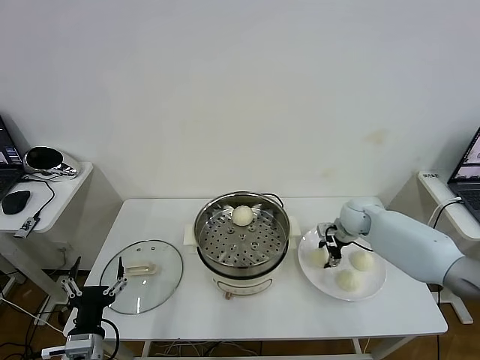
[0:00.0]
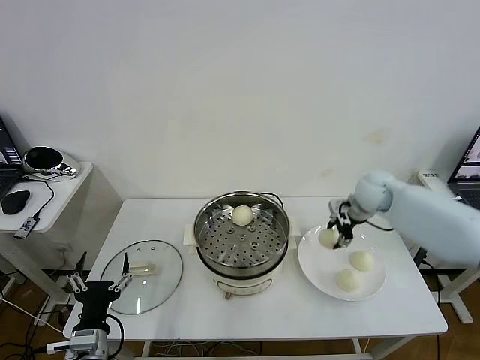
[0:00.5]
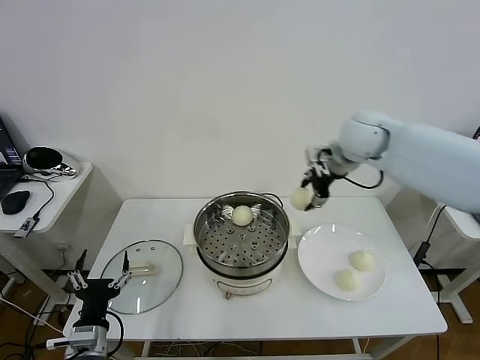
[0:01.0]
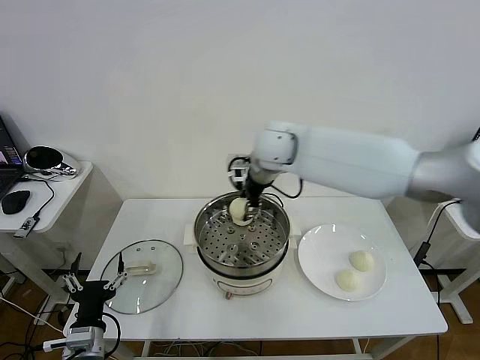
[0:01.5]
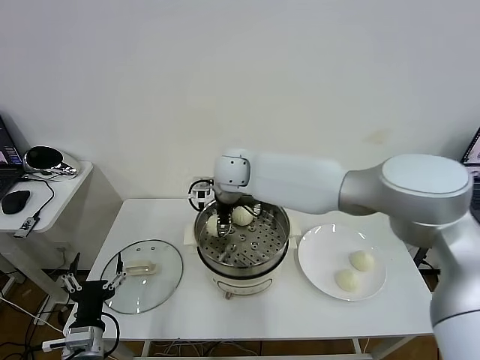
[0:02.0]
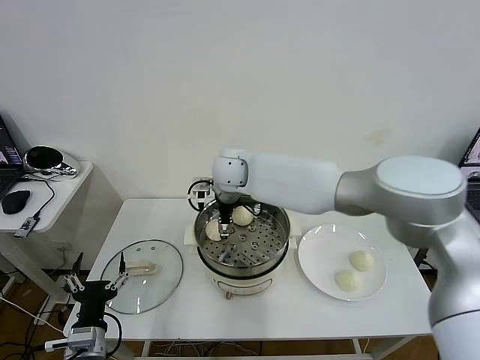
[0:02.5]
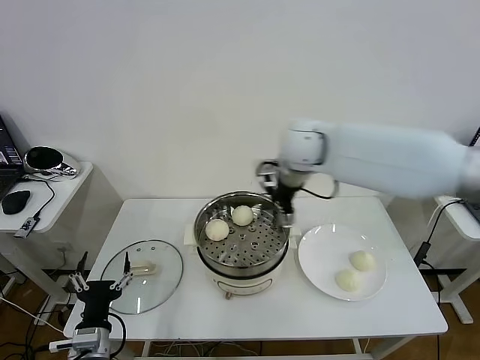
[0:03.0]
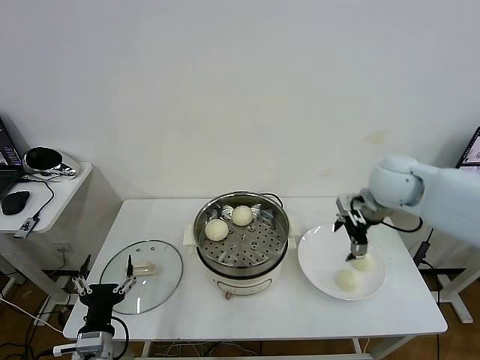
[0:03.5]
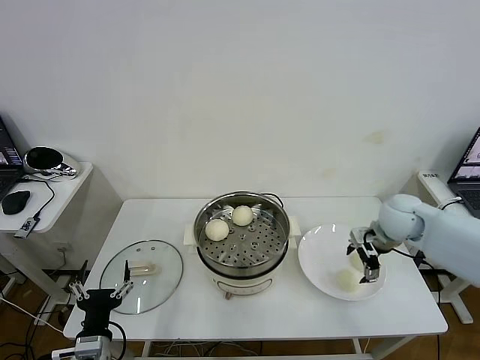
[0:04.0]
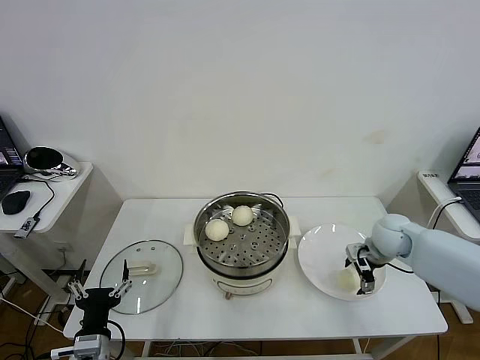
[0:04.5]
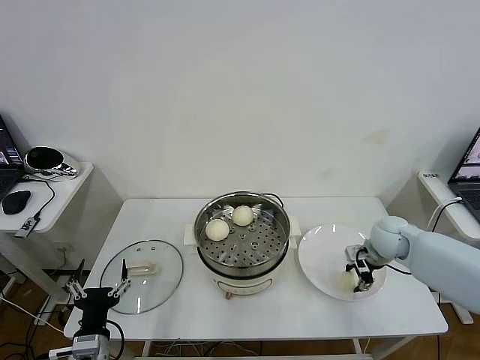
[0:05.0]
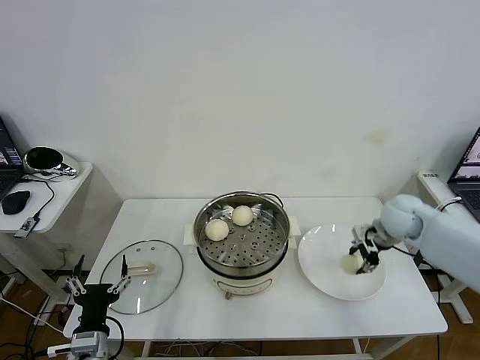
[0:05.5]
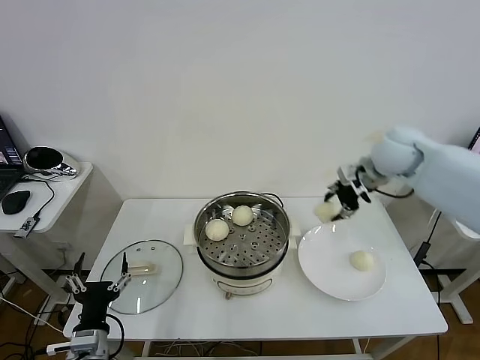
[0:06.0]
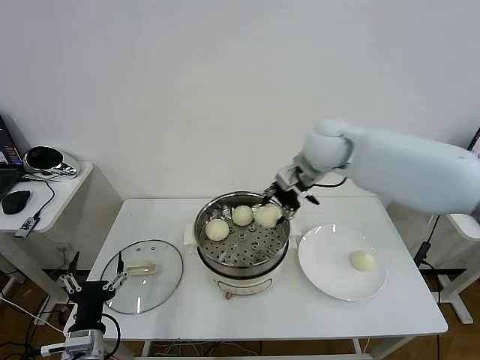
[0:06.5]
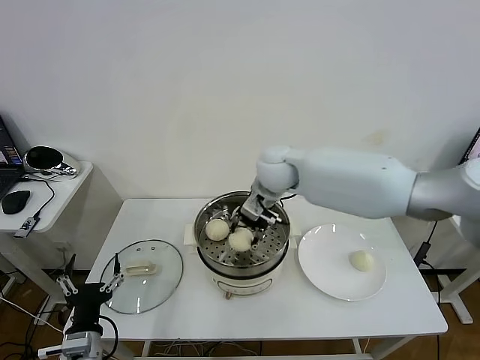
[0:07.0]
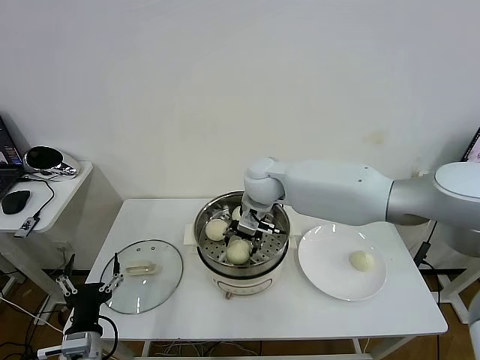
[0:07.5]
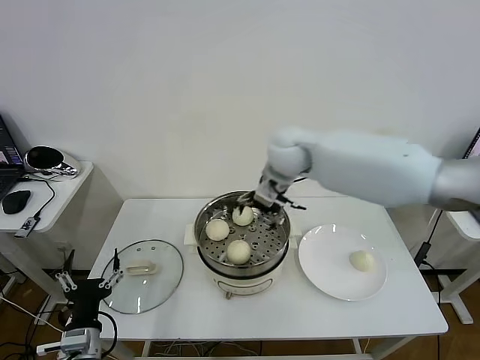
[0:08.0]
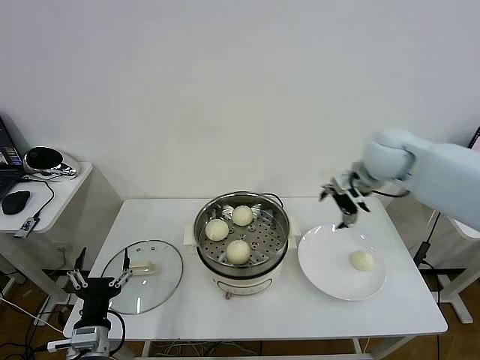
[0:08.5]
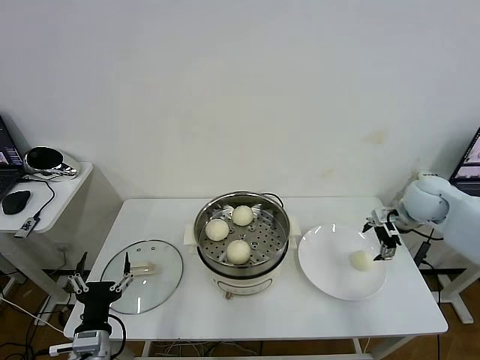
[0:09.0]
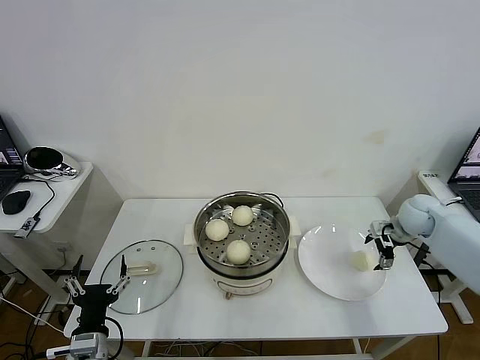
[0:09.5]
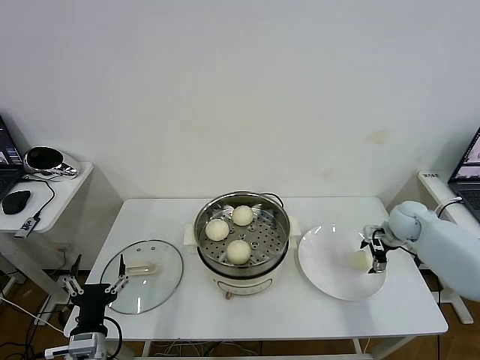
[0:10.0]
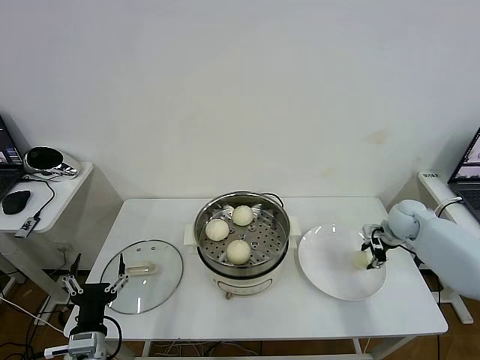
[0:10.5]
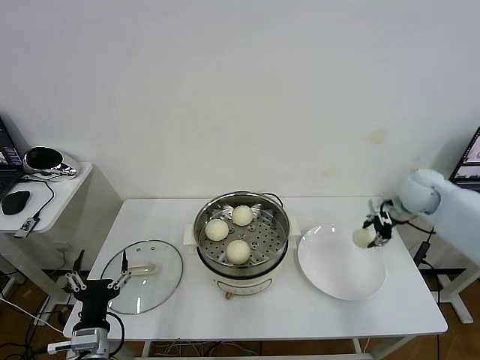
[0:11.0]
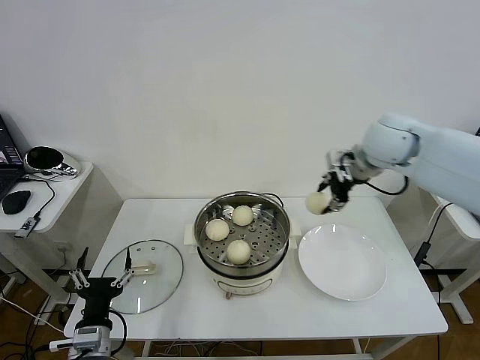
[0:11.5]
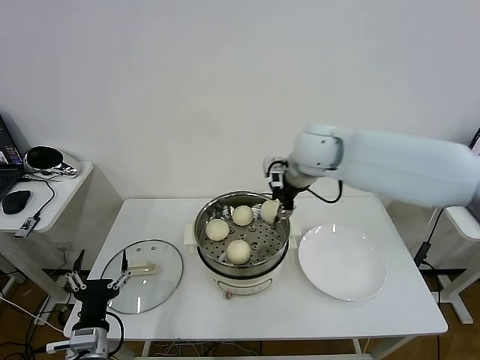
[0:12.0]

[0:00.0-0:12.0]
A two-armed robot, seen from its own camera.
Task of the whole recording: take steamed baozi put them in steamer then cover it.
Step, 0:00.5 to 0:02.0: Place the baozi on the steamer with right gripper.
Step, 0:03.0 to 0:05.0: Grasp the baozi in the plate with right gripper.
Step, 0:05.5 to 0:07.5: Place the baozi on the steamer with right gripper.
Step, 0:08.0 to 0:10.0: Grasp the baozi in the plate with right gripper.
0:00.0 to 0:02.0: The right gripper goes approximately 35 cm to the left and upward.
0:02.0 to 0:04.0: The right gripper moves to the right, approximately 35 cm, and opens its fingers.
0:04.0 to 0:06.0: The right gripper travels upward and forward by some 15 cm, and closes.
0:06.0 to 0:08.0: The right gripper goes approximately 20 cm to the left, and opens.
0:08.0 to 0:10.0: The right gripper is displaced to the right and downward by approximately 40 cm.
0:10.0 to 0:12.0: The right gripper is displaced to the left and upward by about 35 cm, and closes.

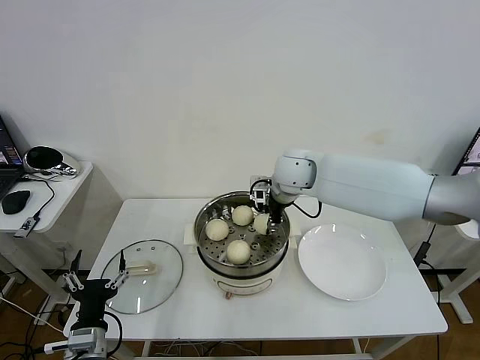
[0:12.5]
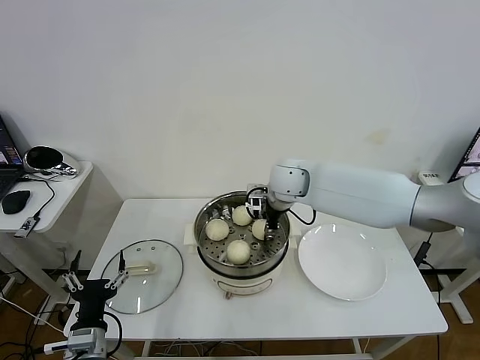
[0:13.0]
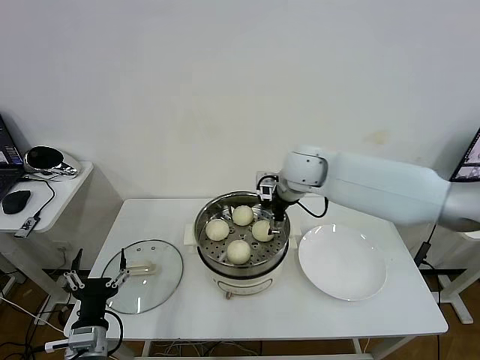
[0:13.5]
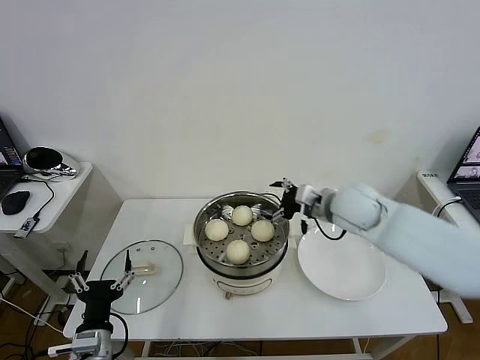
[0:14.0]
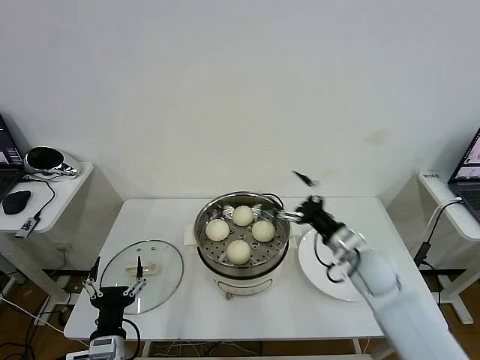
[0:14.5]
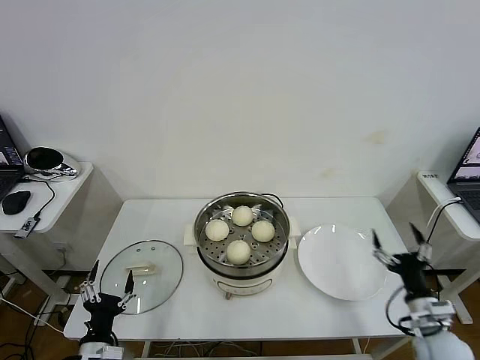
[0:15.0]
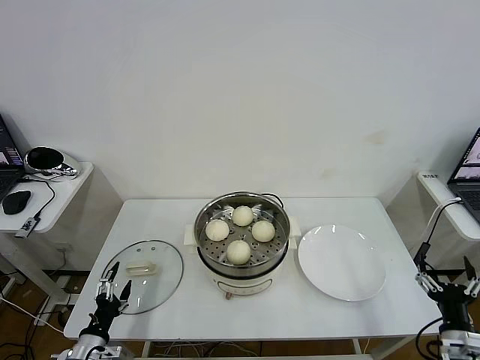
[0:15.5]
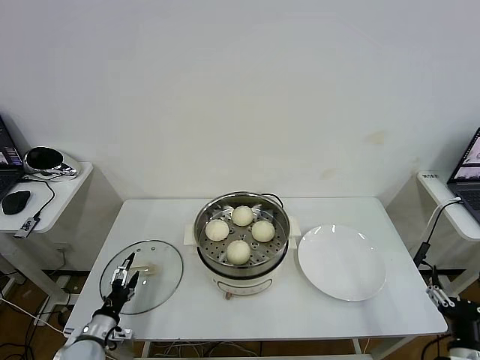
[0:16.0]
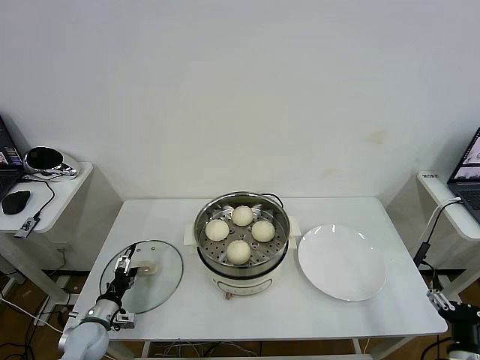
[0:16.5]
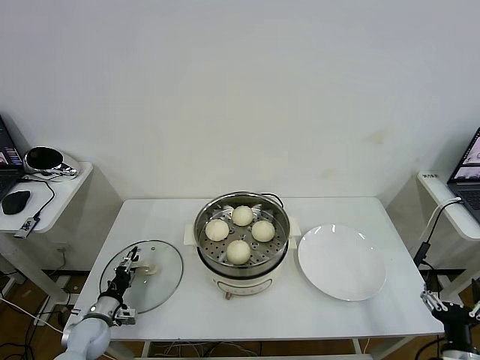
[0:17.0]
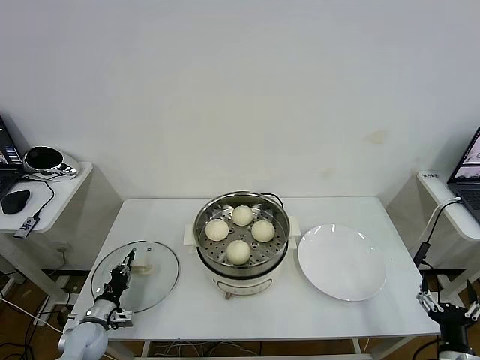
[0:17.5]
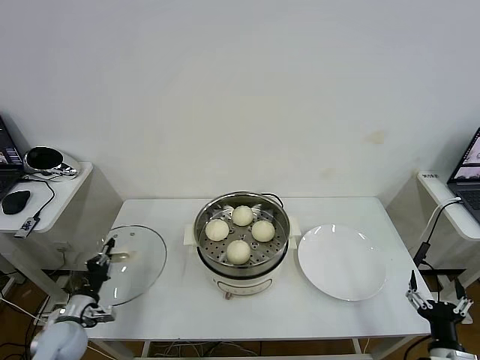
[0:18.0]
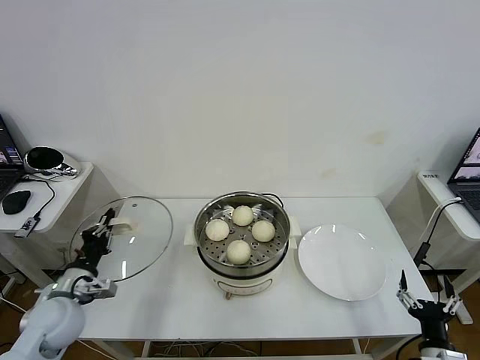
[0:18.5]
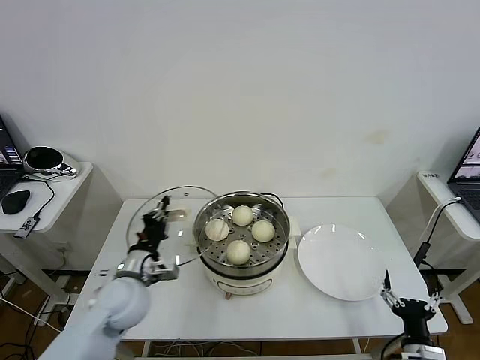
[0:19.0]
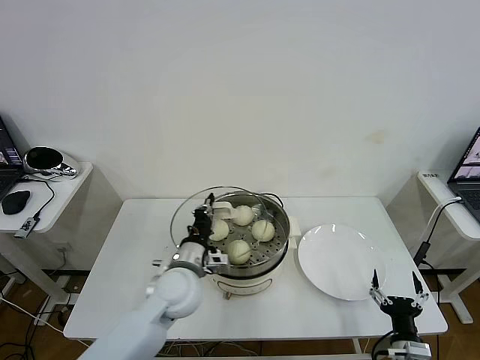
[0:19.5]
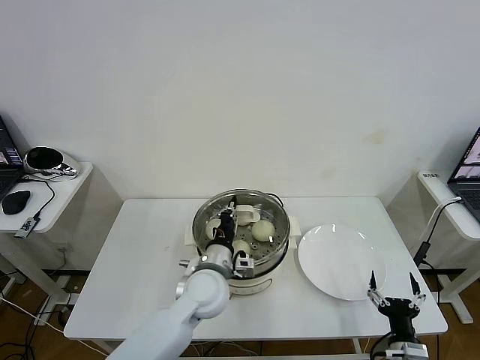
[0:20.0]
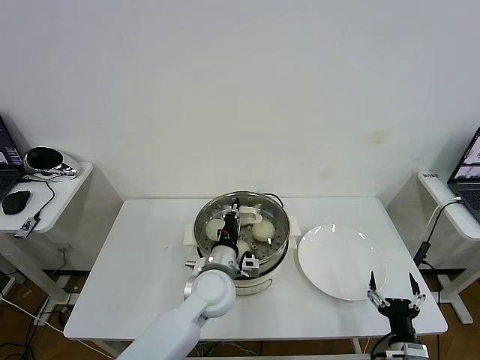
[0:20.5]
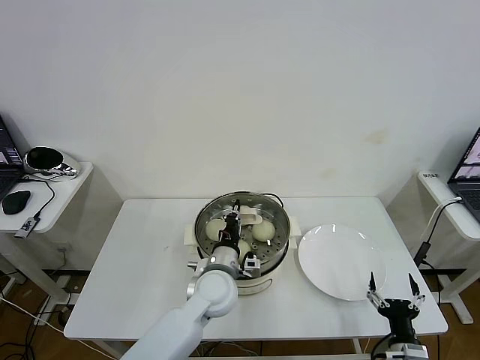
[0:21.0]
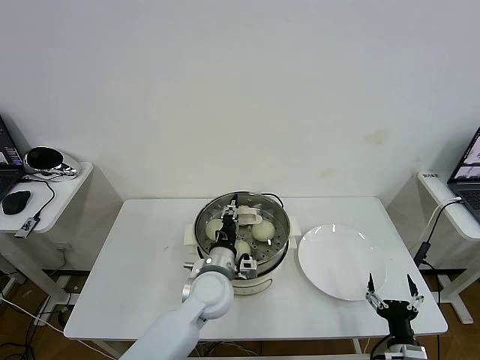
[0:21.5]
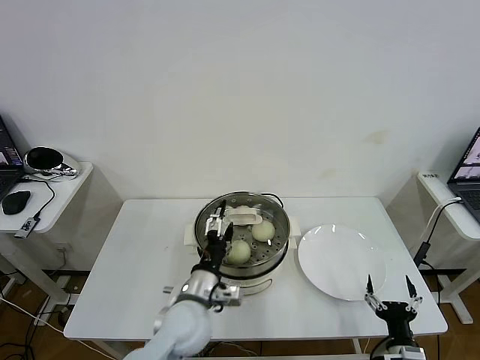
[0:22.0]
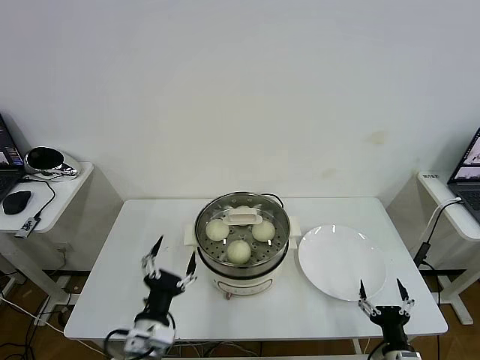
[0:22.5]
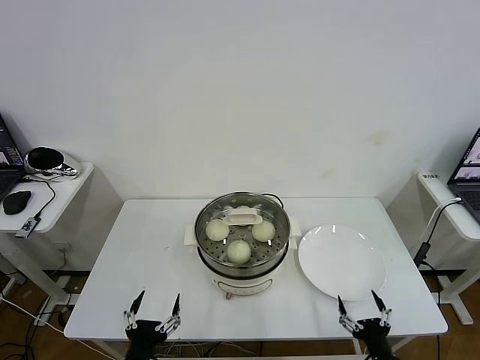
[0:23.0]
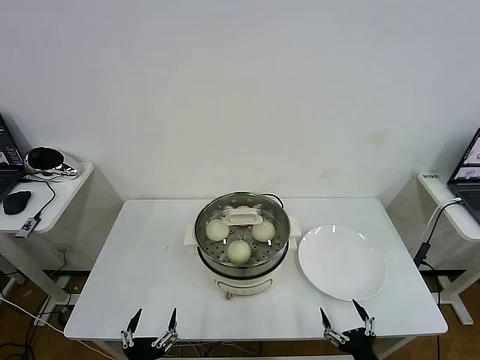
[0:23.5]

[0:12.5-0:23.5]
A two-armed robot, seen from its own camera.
Task of the whole recording: take steamed baozi put them in steamer then cover it.
Step, 0:14.0 to 0:17.5: Grasp the pot lid with left gripper.
Step, 0:18.0 to 0:22.0: Place the pot lid on the steamer with left gripper.
0:12.5 to 0:14.5: The right gripper shifts roughly 25 cm backward, to the right and downward, and opens.
0:14.5 to 0:16.0: The right gripper is displaced backward and to the right by approximately 30 cm. The left gripper shifts roughly 15 cm to the left, downward and forward.
0:16.0 to 0:18.0: The left gripper moves about 5 cm, and closes up.
0:18.0 to 0:20.0: The left gripper is displaced to the right by roughly 35 cm. Meanwhile the right gripper travels to the left by roughly 5 cm.
0:20.0 to 0:21.5: The grippers move only a little.
0:21.5 to 0:23.5: The left gripper moves backward and to the left, some 30 cm, and opens its fingers, while the right gripper goes about 5 cm backward.
